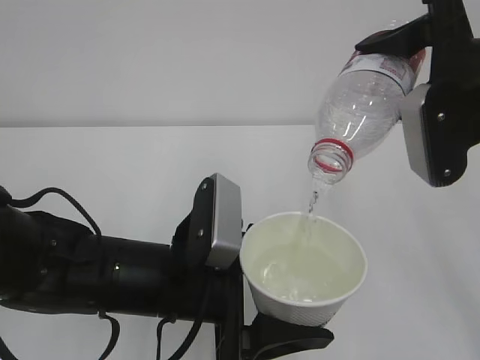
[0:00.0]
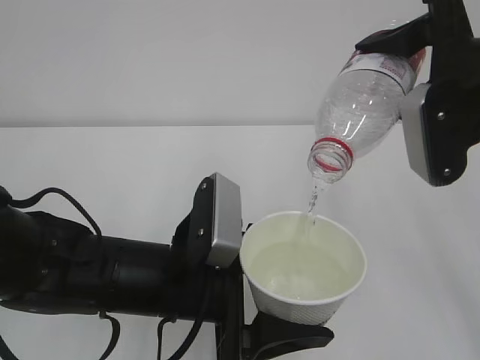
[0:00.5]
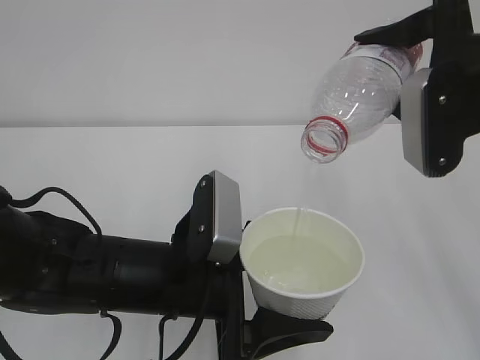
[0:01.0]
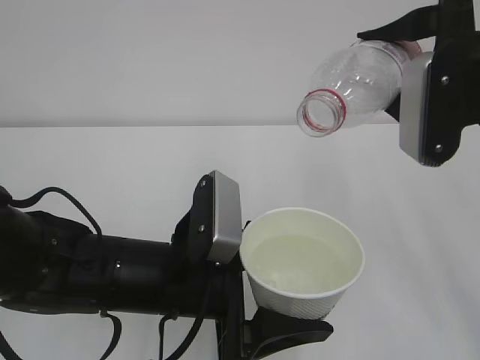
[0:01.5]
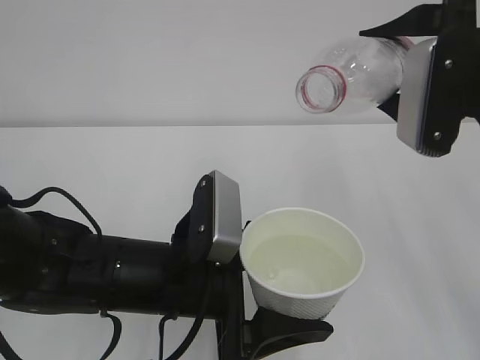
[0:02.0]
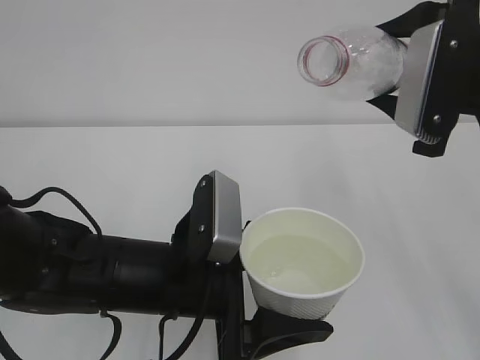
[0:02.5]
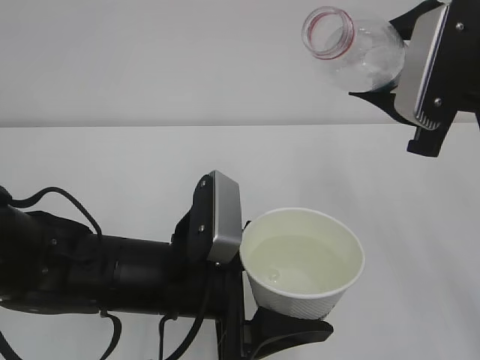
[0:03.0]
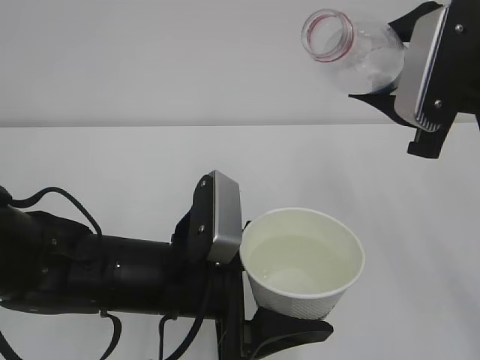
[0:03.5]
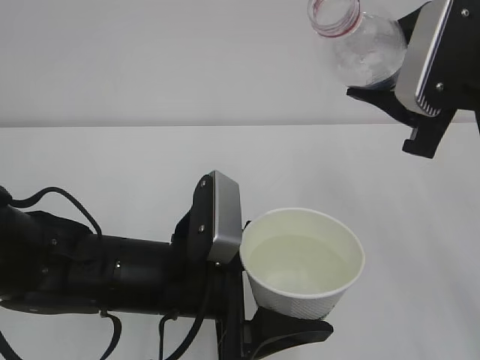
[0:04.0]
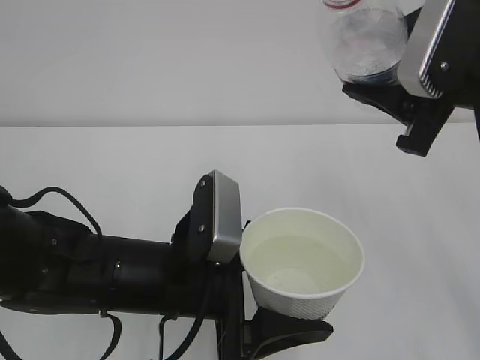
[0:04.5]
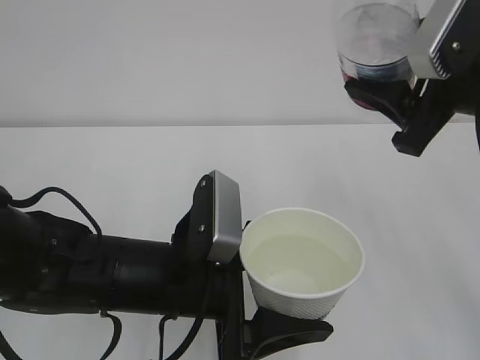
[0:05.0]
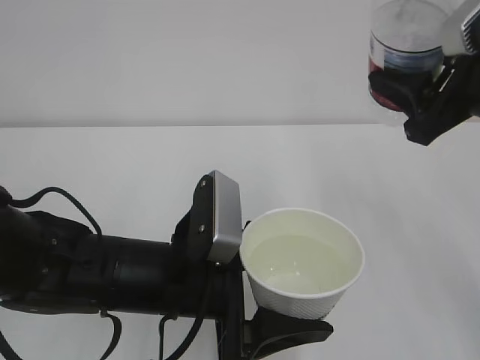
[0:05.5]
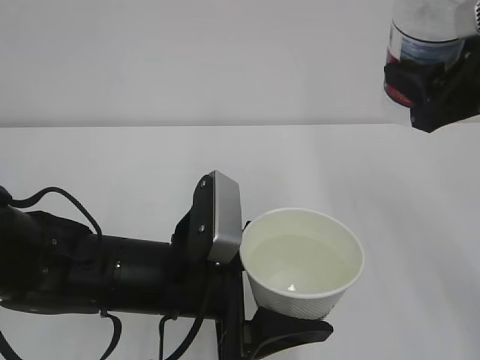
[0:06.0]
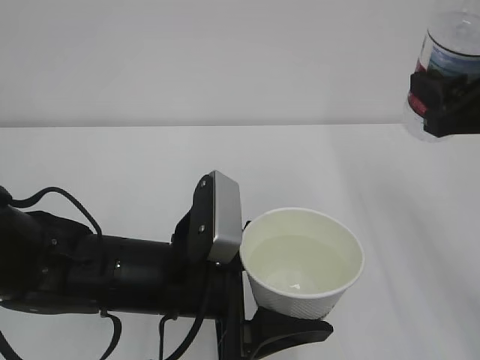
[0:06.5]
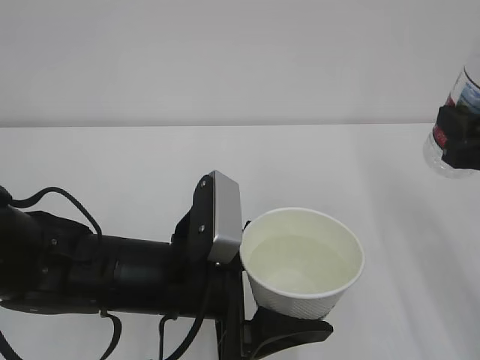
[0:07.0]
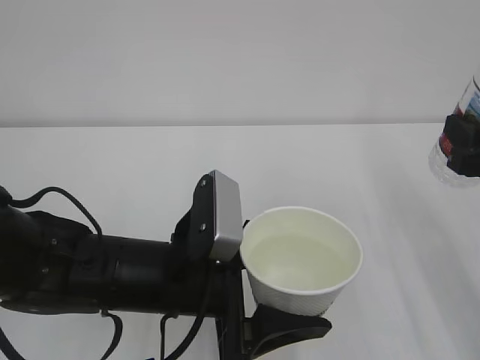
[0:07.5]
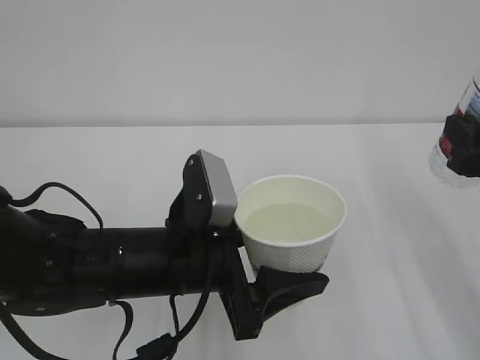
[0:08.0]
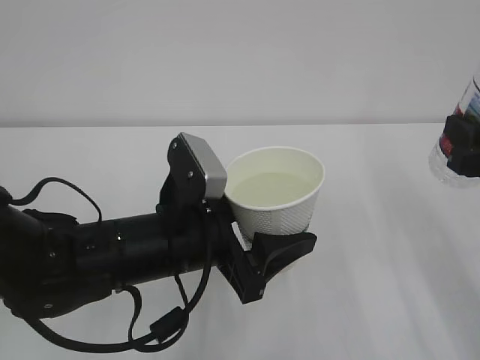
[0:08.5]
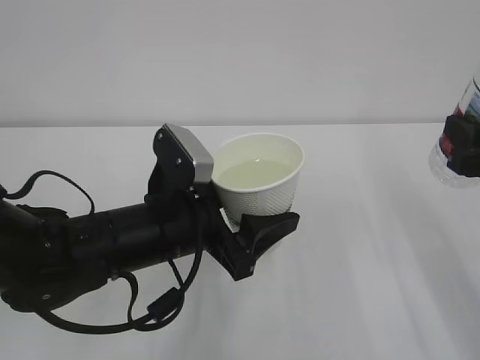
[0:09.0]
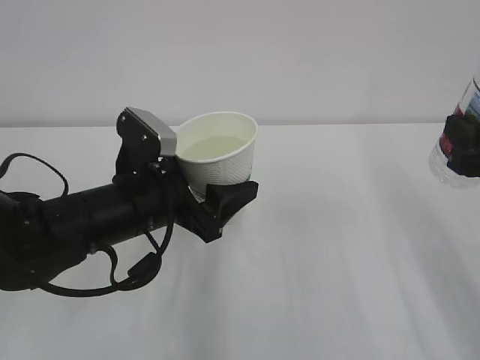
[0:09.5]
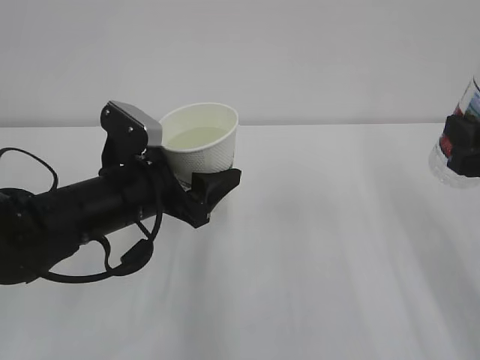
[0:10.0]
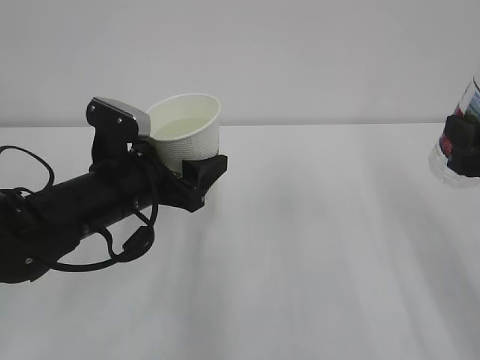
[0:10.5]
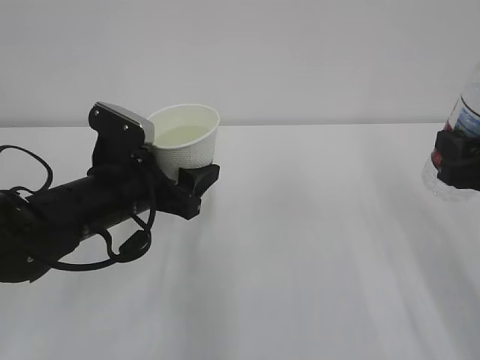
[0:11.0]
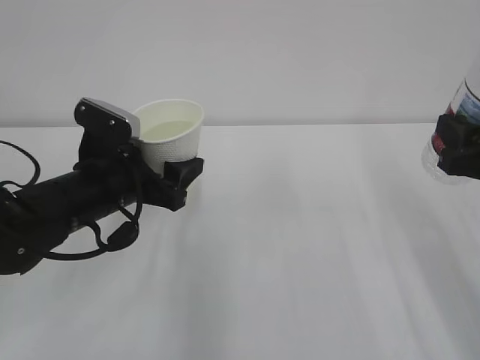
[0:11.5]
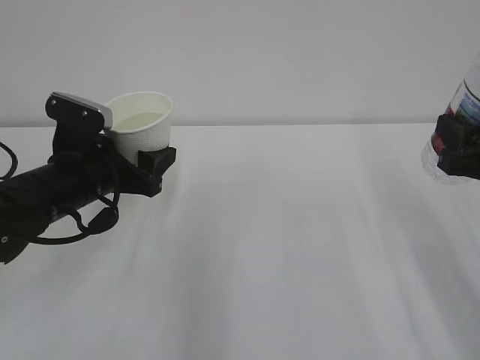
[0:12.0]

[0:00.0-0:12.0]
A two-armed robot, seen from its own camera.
0:06.0 to 0:08.0: The right gripper travels downward by about 5 cm.
0:08.0 to 0:10.0: The left gripper is displaced forward and to the left by approximately 10 cm.
0:10.0 to 0:12.0: The left gripper is displaced to the left by some 5 cm.

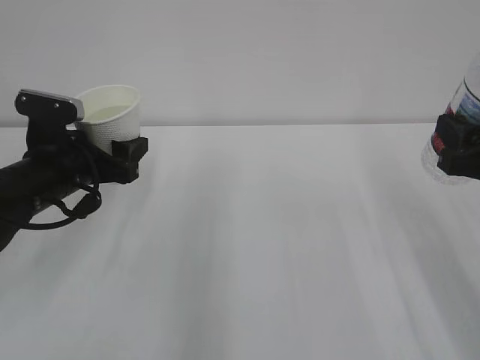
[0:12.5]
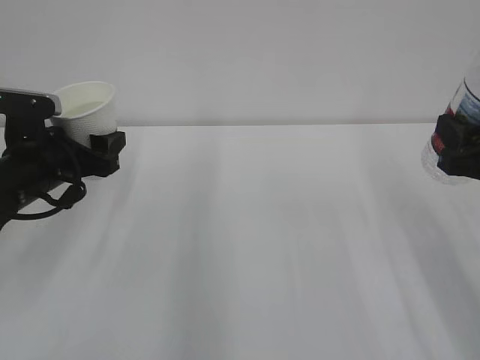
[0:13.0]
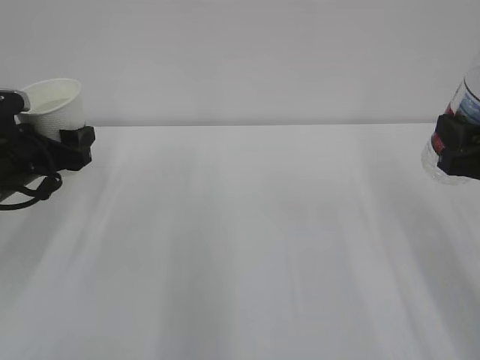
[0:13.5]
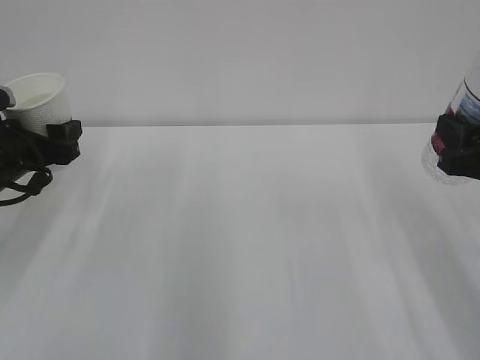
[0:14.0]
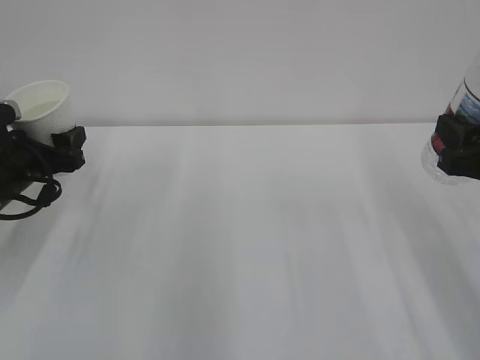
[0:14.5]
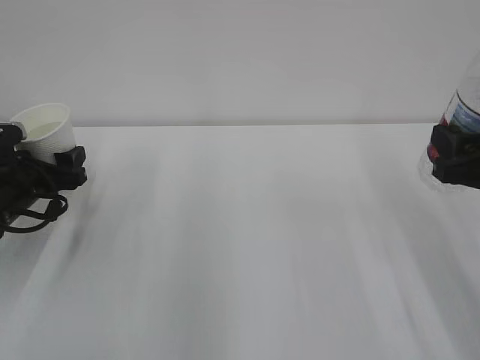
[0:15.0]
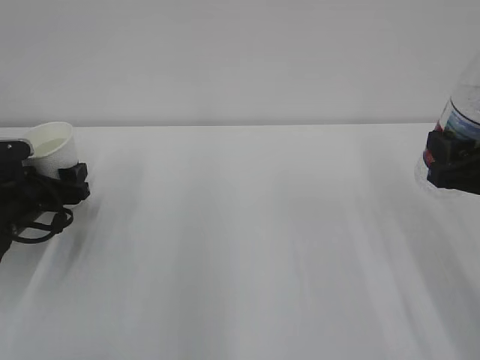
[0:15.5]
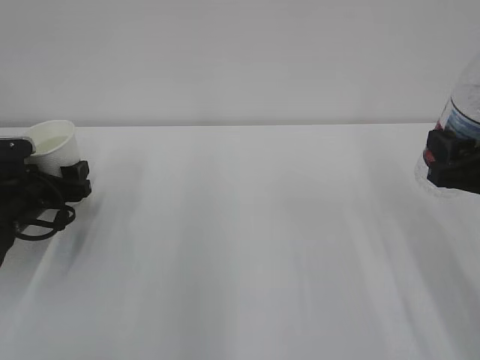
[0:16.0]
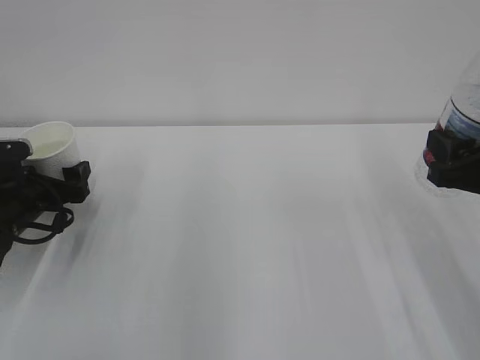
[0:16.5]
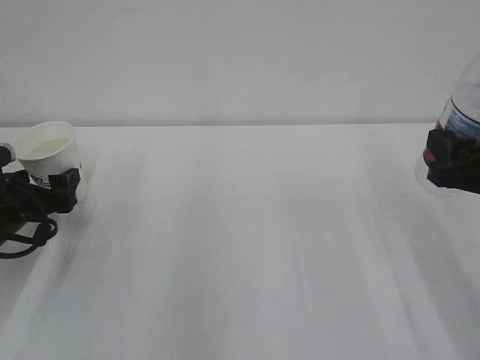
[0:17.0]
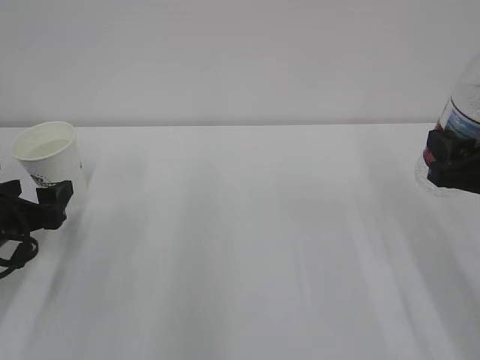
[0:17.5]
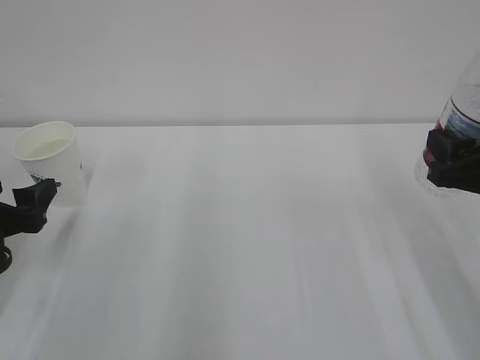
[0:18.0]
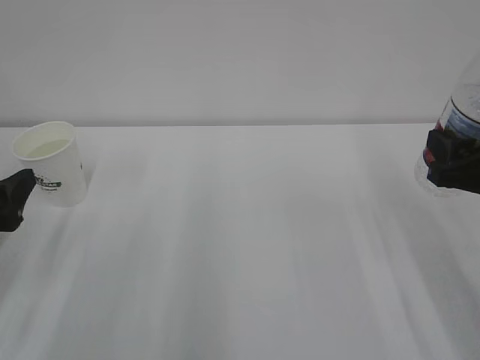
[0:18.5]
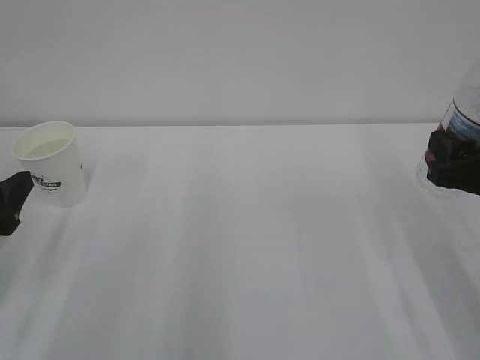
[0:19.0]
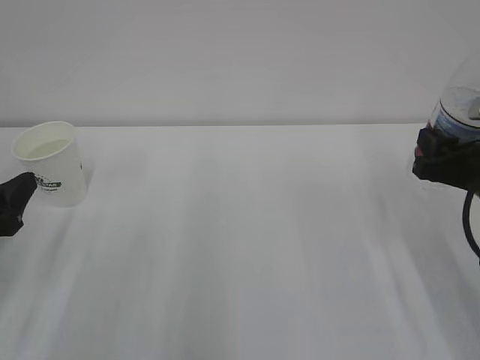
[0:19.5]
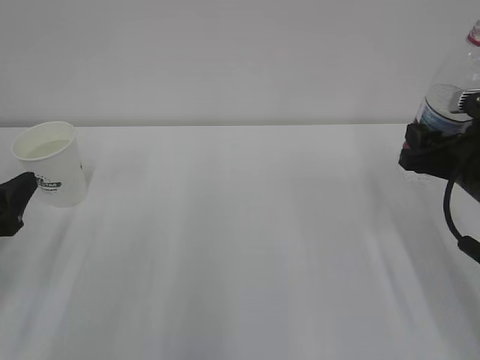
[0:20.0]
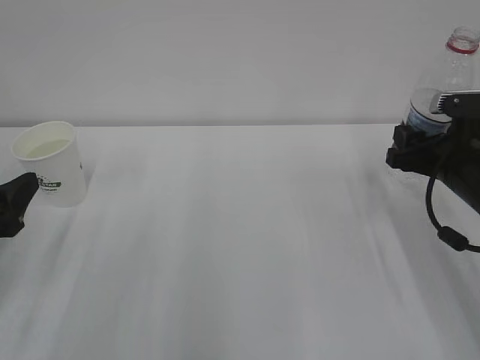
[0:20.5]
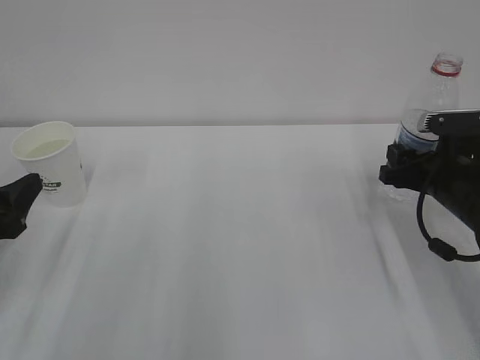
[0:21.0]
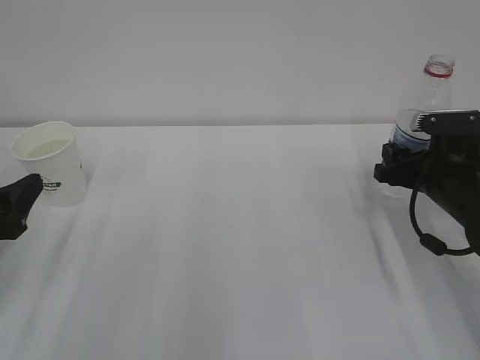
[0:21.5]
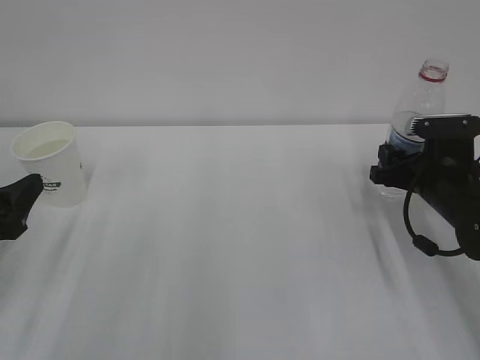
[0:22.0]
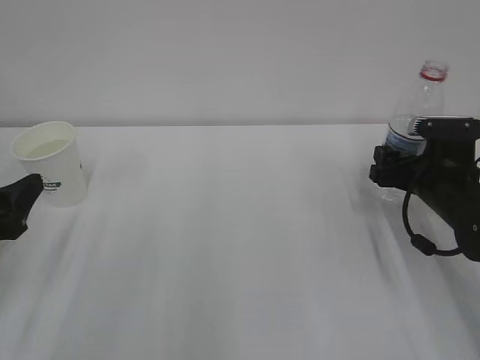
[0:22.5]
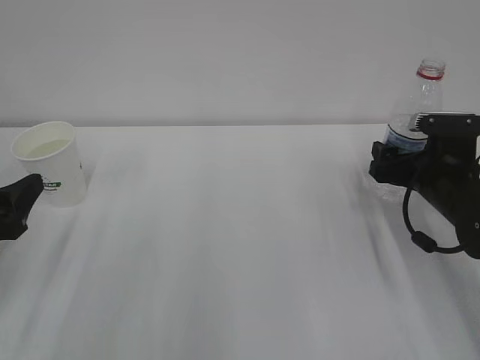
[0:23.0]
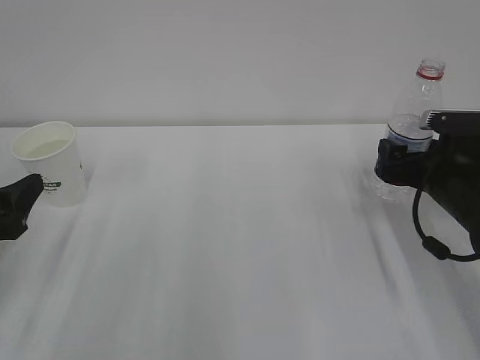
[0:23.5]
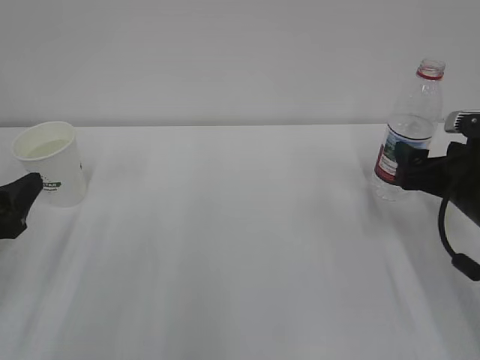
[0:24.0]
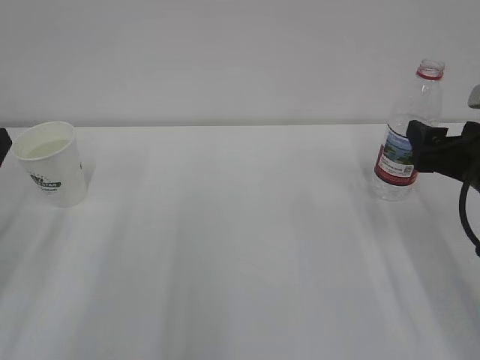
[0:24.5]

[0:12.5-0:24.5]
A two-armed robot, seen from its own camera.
0:12.5 to 0:14.5: The left gripper shifts some 5 cm to the left.
0:14.5 to 0:16.5: The left gripper is displaced downward by about 5 cm, and opens its fingers.
0:16.5 to 0:18.5: The left gripper heads backward and upward, covering approximately 15 cm.
0:18.5 to 0:20.5: The right gripper moves forward, roughly 10 cm.
0:20.5 to 0:22.5: The right gripper moves some 5 cm, and opens.
0:22.5 to 0:24.5: The right gripper travels upward and backward by about 10 cm.

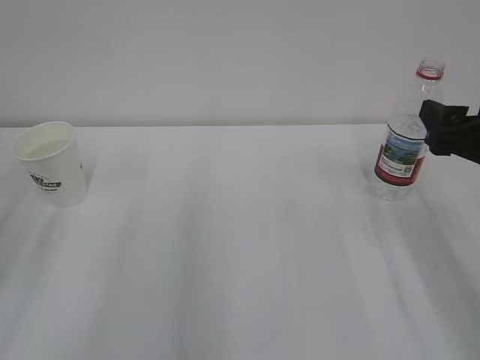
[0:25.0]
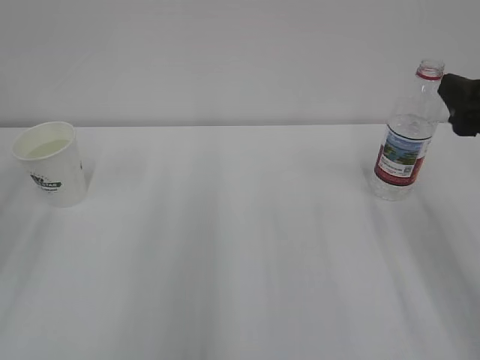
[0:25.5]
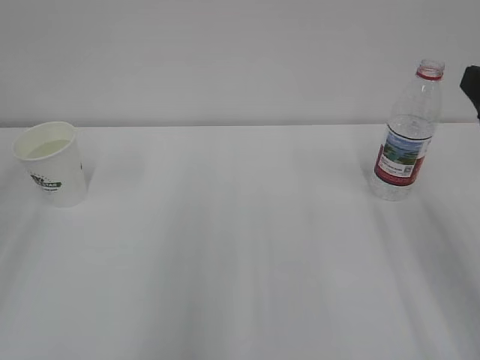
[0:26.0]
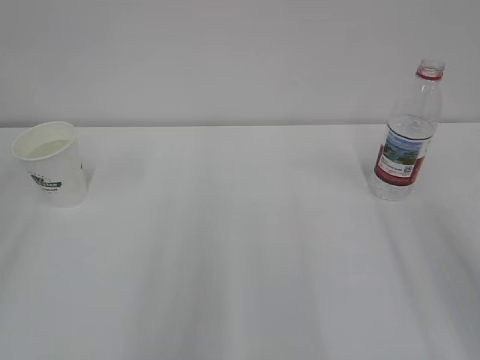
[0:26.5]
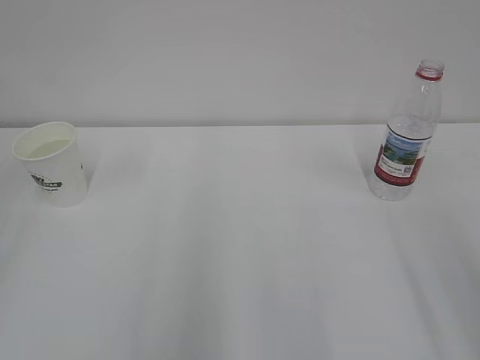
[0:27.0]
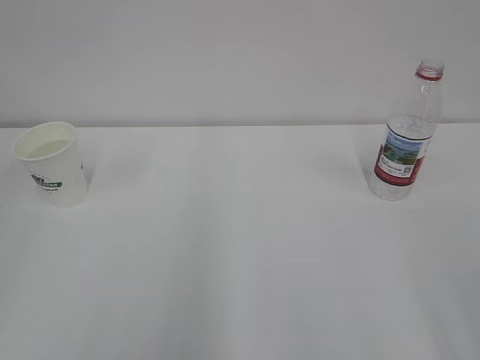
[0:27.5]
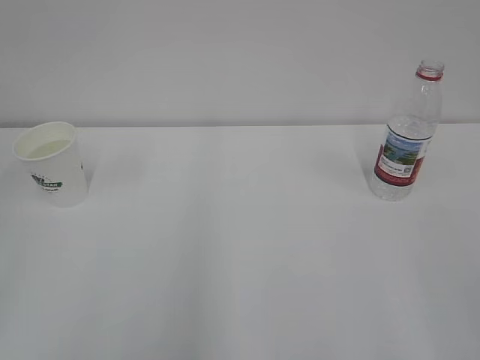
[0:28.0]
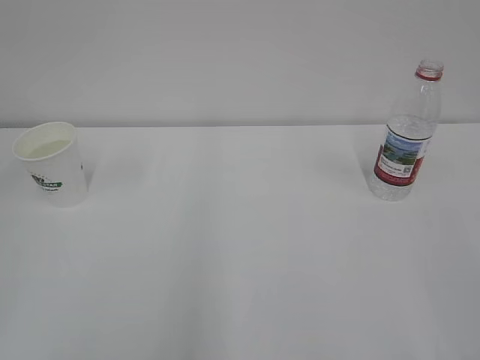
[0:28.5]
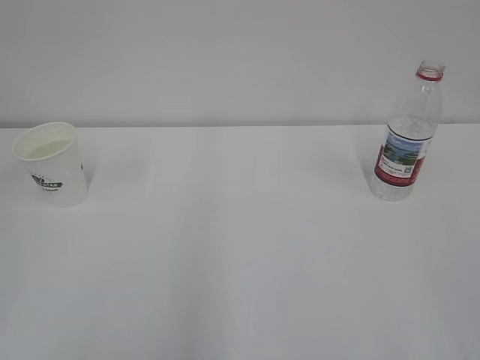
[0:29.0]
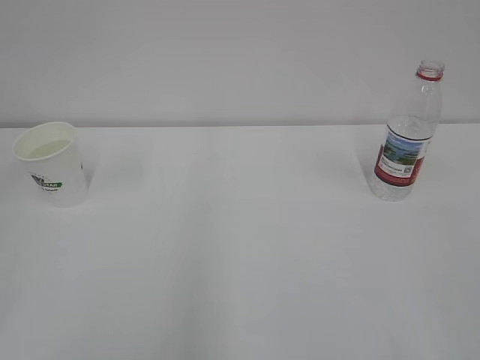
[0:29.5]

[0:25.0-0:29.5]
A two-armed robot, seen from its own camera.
0:25.0 to 0:27.0: The right gripper shifts roughly 20 cm backward and upward.
